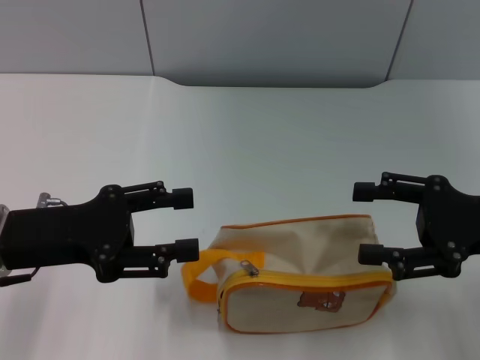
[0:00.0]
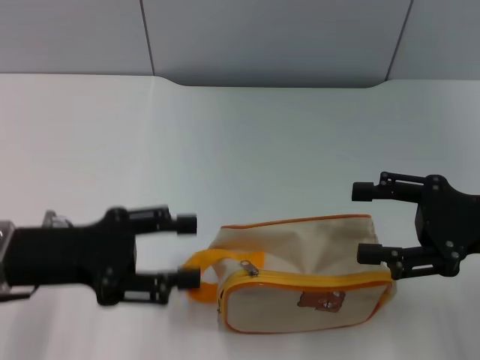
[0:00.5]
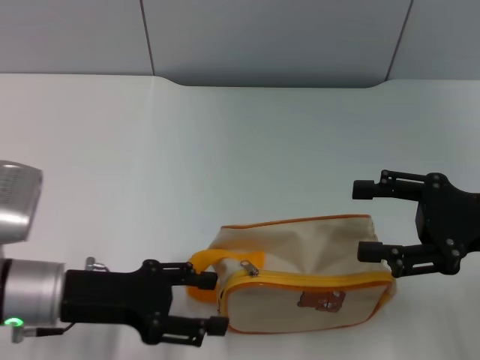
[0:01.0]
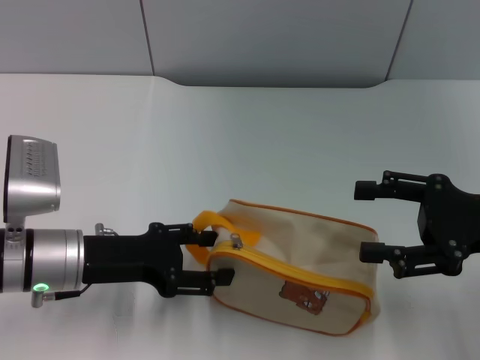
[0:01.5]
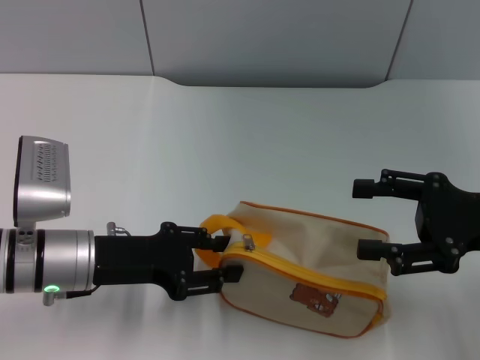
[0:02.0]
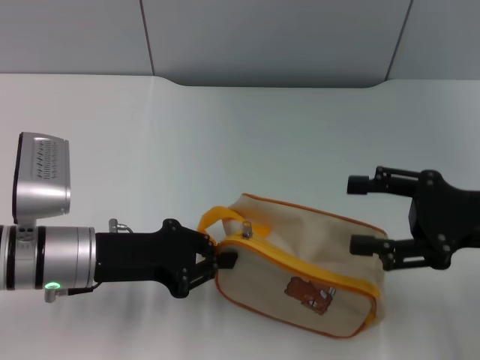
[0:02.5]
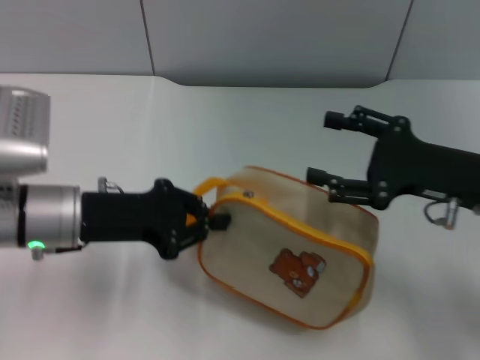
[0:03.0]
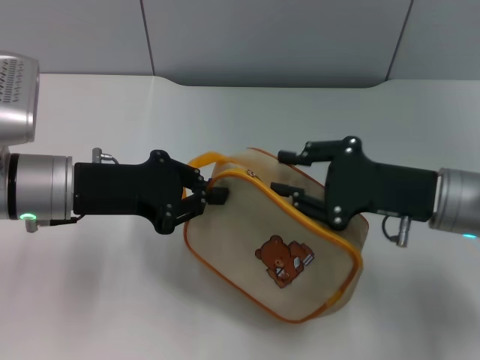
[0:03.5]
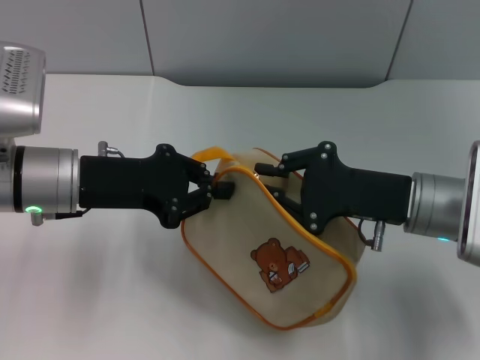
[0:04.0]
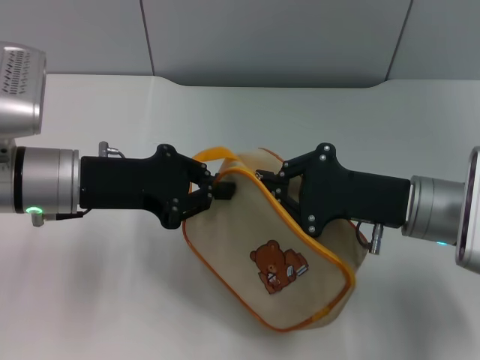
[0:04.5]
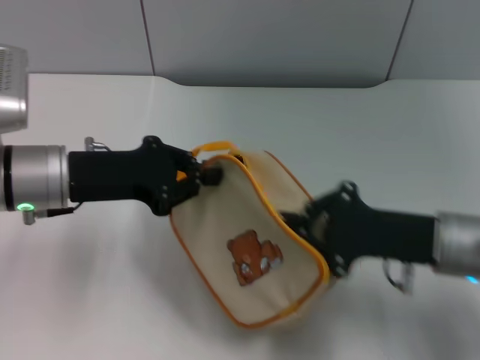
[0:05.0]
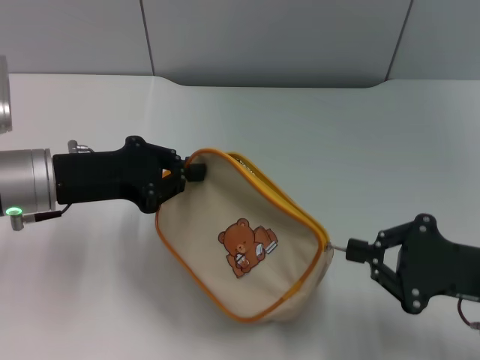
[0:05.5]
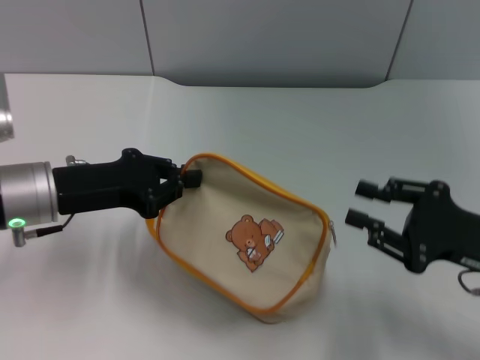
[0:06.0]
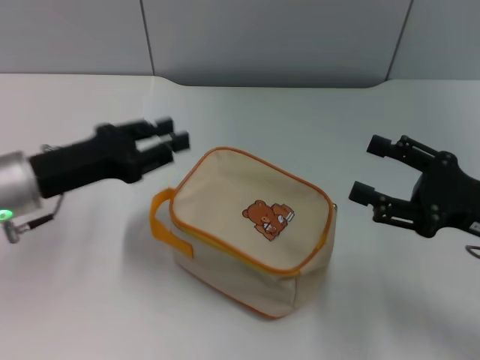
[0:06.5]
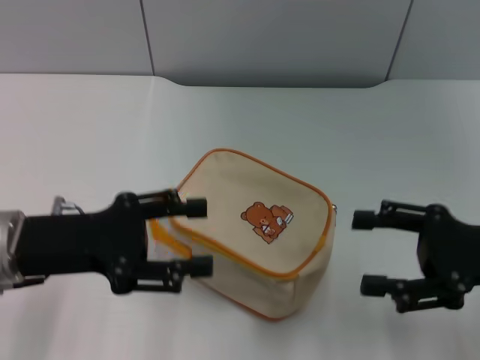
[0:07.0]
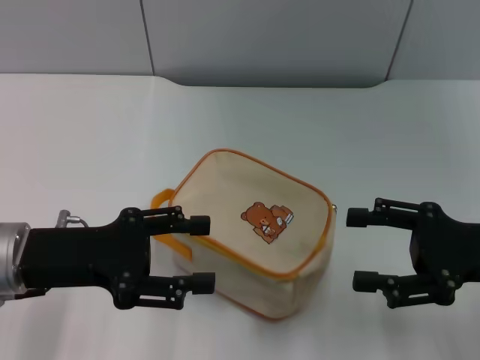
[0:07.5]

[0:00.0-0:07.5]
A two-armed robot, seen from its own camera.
Step, 0:00.0 to 0:03.0: Pick up the bag with left gripper.
Step, 0:03.5 to 0:05.5: Unzip the zipper of bag with right gripper.
0:00.0 to 0:02.0: The left gripper heads downward, covering some 5 cm.
0:02.0 to 0:04.0: The right gripper travels to the left by some 10 cm, and closes up. Meanwhile the left gripper goes some 5 cm upward, and closes.
0:04.0 to 0:05.5: The right gripper shifts about 10 cm to the right and backward.
0:05.5 to 0:07.5: The left gripper heads backward, covering some 5 cm, and opens its fingers. Meanwhile the right gripper opens up.

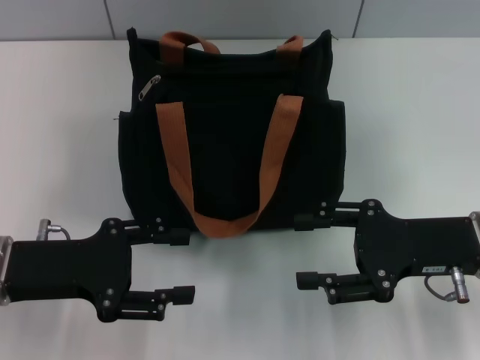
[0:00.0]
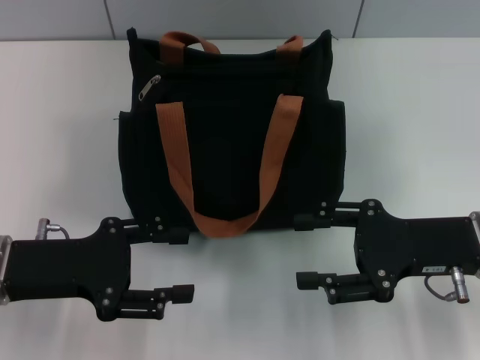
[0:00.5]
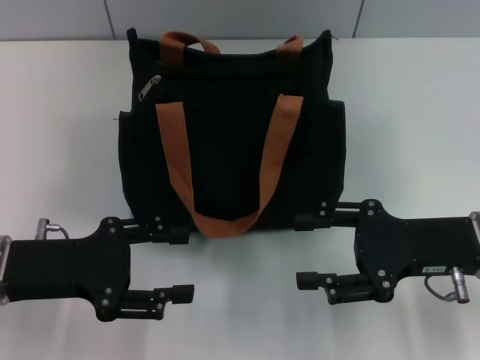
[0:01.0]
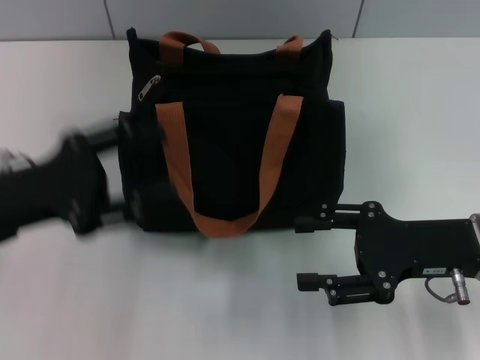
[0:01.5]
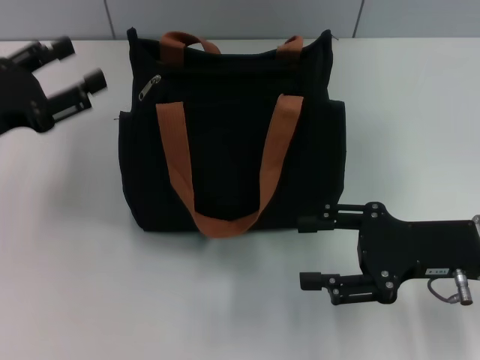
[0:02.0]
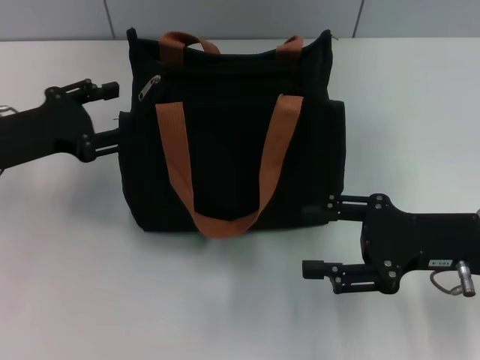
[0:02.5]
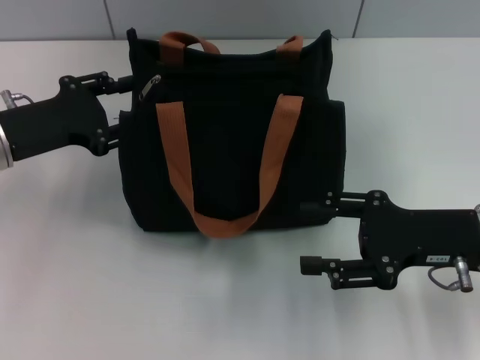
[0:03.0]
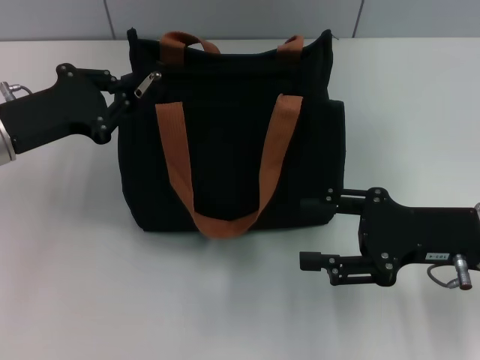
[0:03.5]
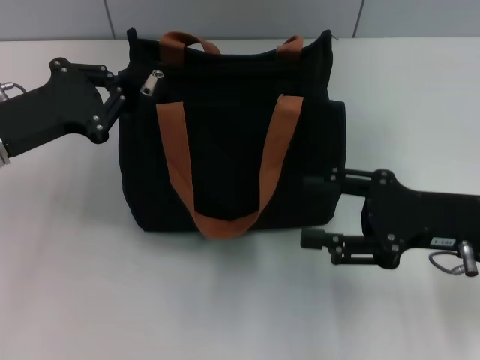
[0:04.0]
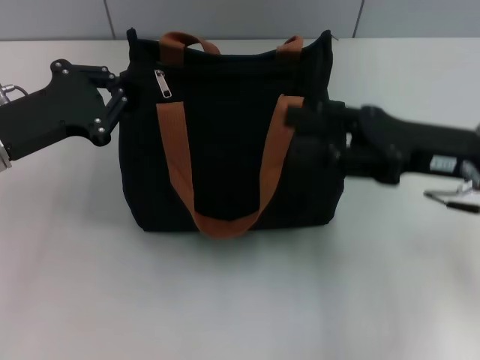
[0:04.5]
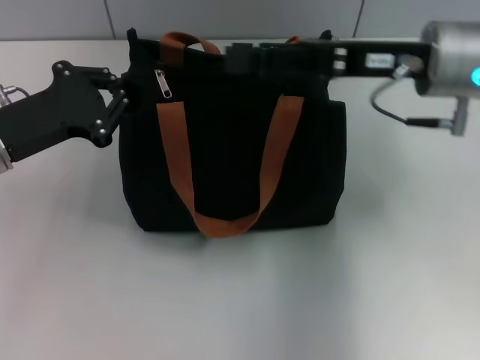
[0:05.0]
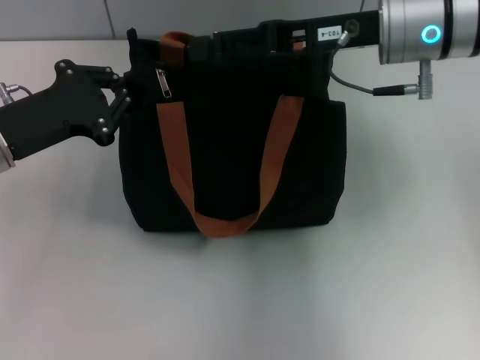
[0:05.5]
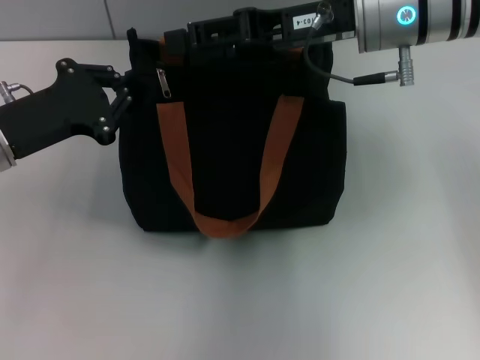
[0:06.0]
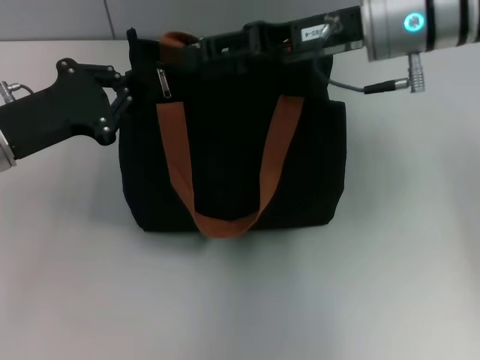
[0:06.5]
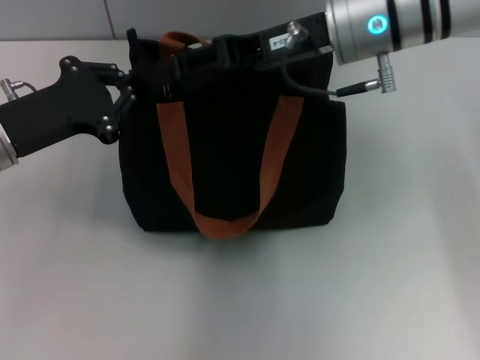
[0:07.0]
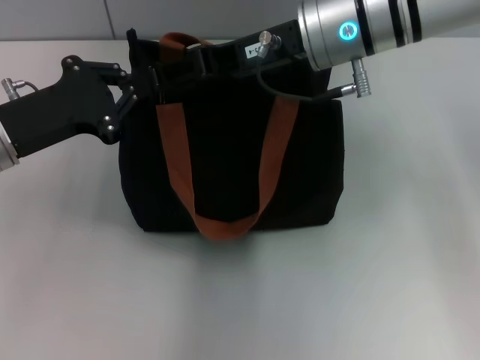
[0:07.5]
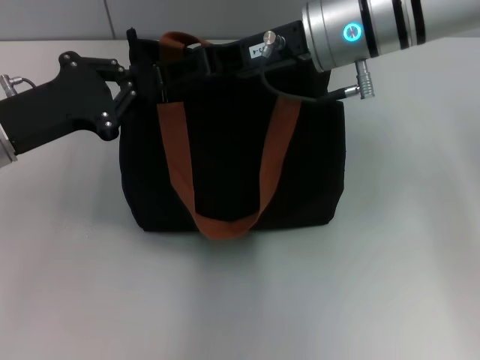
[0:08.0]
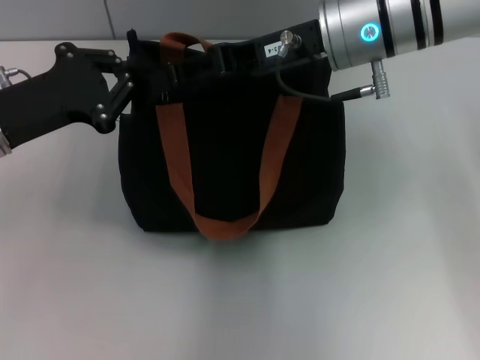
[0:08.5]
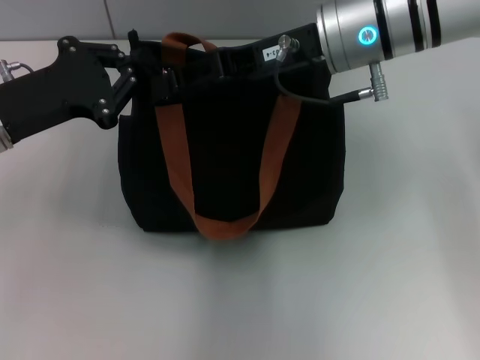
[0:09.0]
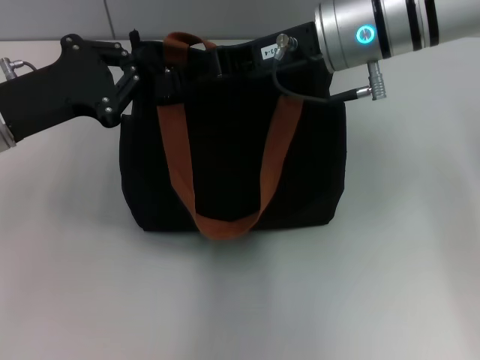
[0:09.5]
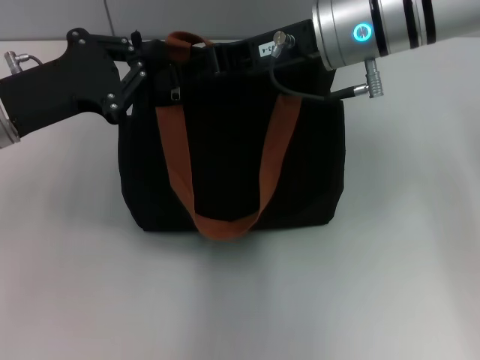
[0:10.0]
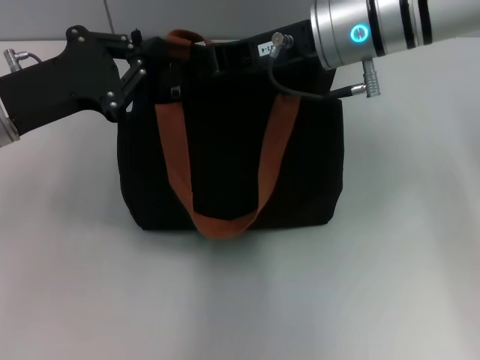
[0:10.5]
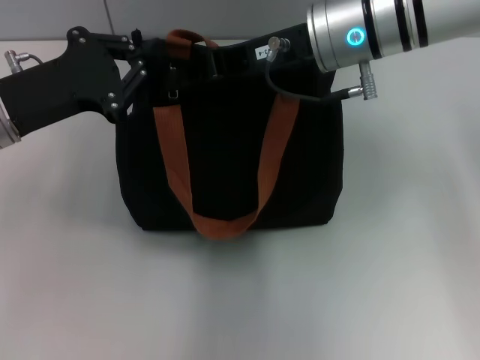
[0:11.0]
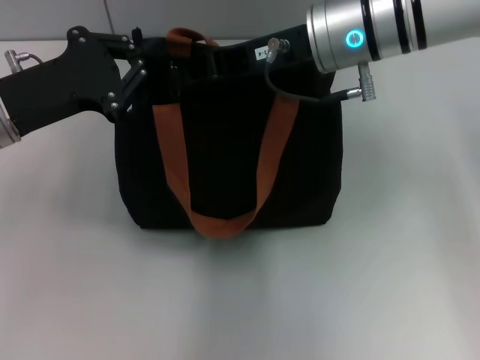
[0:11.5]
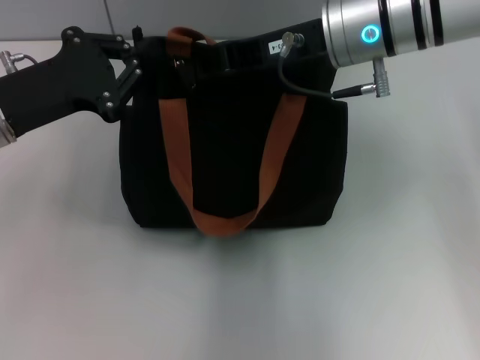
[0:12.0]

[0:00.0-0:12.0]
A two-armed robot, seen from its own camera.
0:00.0 to 0:02.0: The left gripper travels forward and to the left by roughly 10 cm.
0:02.0 to 0:04.0: The left gripper closes.
0:04.0 to 0:06.0: The right gripper shifts about 20 cm forward, upward and to the left.
0:06.0 to 0:08.0: There are only small adjustments of the grippers.
0:08.0 to 0:10.0: The right gripper closes.
0:10.0 to 0:12.0: The right gripper closes.

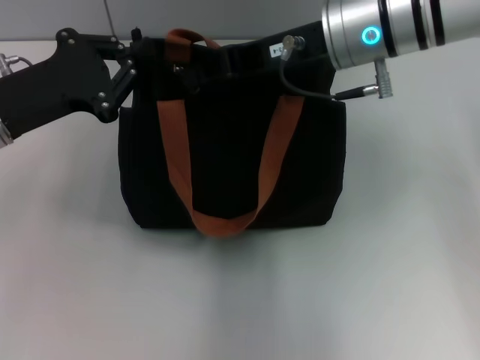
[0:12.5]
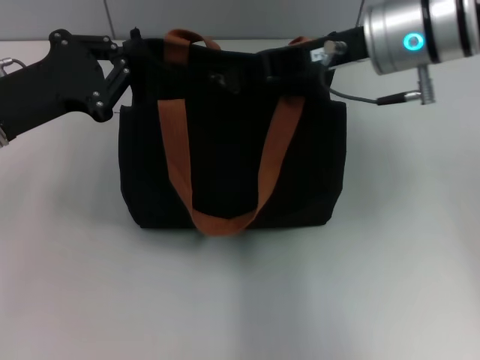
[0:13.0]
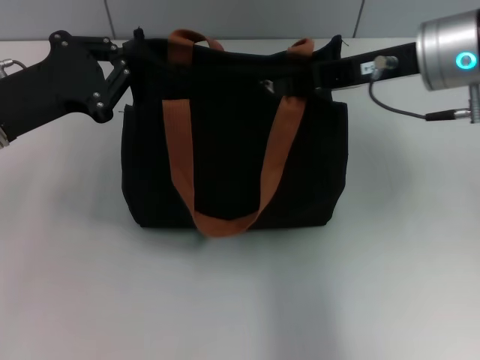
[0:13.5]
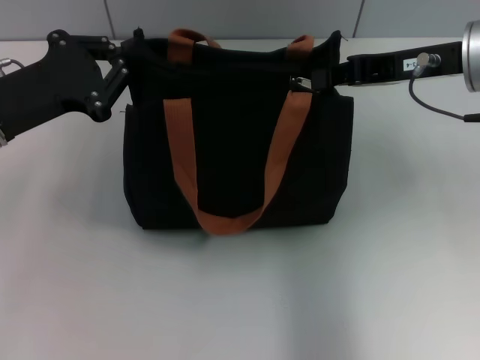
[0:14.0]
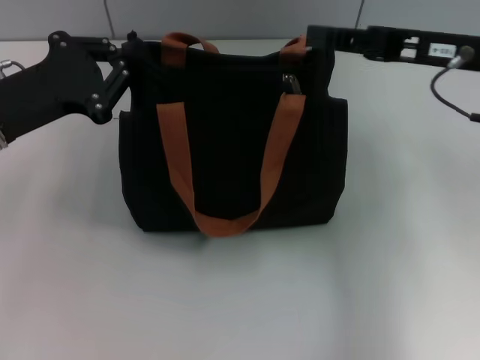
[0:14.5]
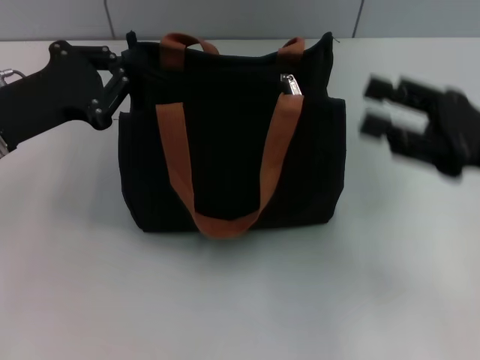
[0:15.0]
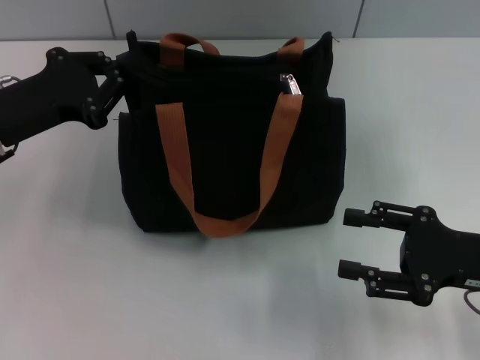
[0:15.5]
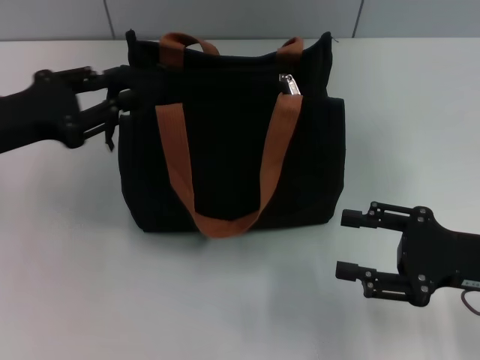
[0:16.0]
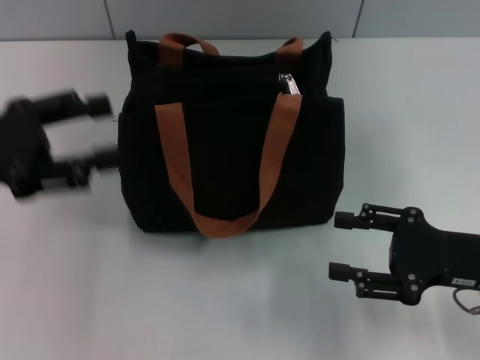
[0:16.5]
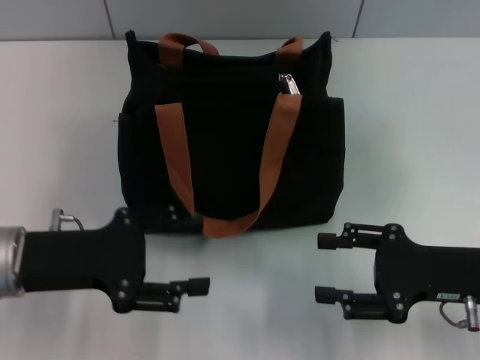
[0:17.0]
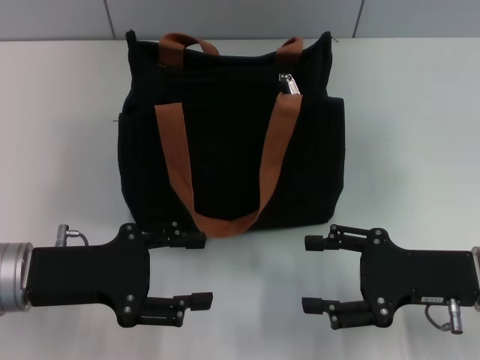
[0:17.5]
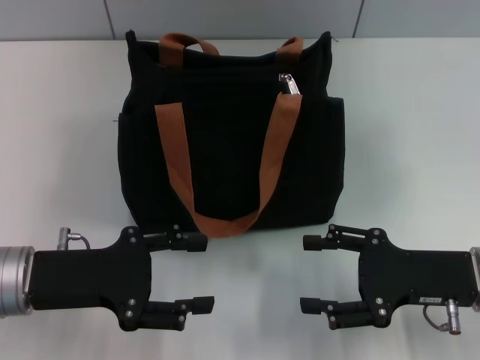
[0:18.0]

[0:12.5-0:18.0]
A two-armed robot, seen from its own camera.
Step, 0:14.5 to 0:16.0: Grab the zipper with your left hand.
0:12.5 to 0:14.5: The right gripper goes approximately 15 cm to the right and backward.
0:14.5 to 0:16.0: The right gripper moves downward and backward, some 15 cm, and opens its fingers.
0:16.0 to 0:18.0: The left gripper goes approximately 10 cm backward and downward, and opens.
